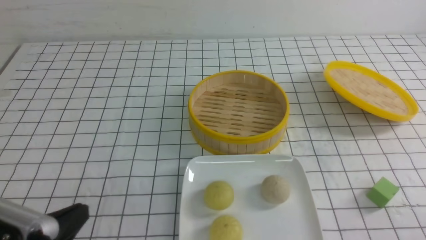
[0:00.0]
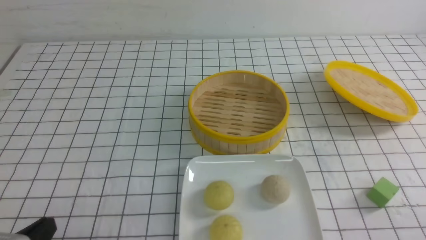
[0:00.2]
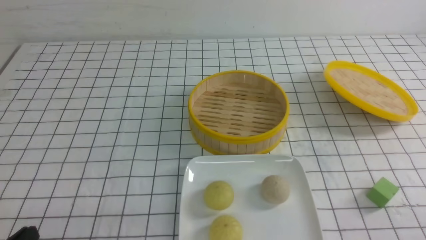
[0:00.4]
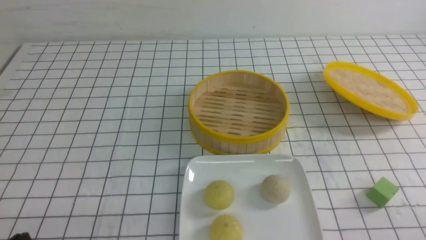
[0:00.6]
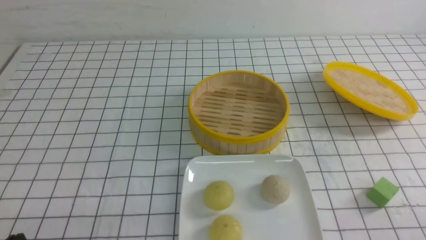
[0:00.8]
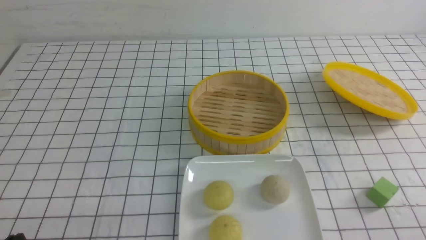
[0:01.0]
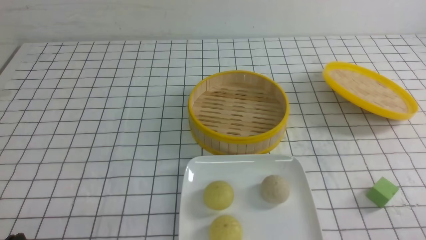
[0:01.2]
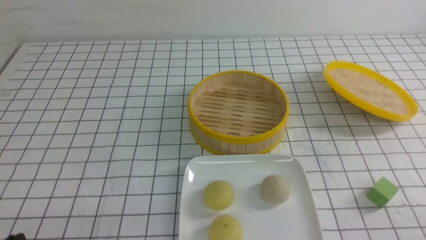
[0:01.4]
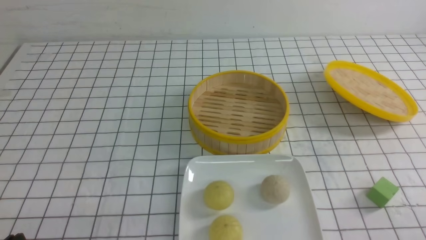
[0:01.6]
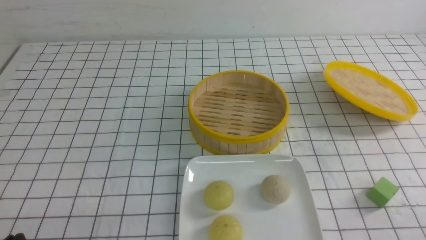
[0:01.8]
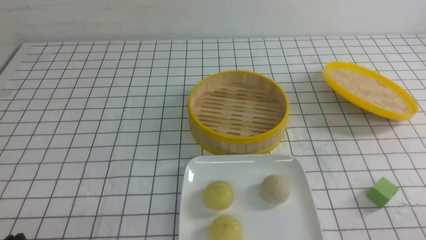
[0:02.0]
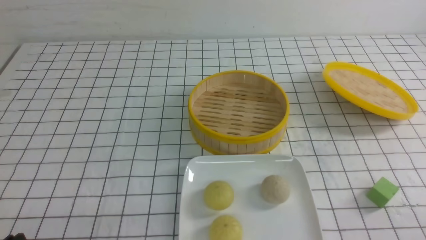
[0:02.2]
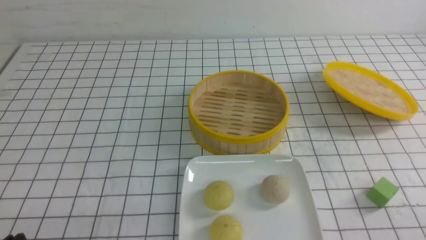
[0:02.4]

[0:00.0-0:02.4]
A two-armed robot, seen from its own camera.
0:00.0 to 0:01.2: The left gripper goes about 5 cm downward.
0:01.2 to 0:02.4: Both grippers stay put.
